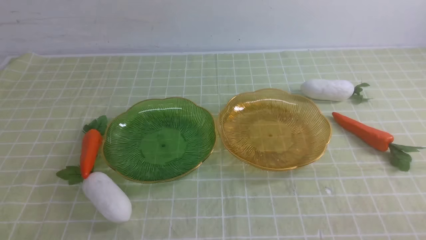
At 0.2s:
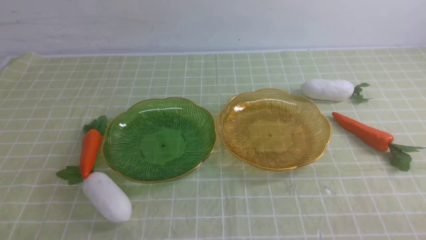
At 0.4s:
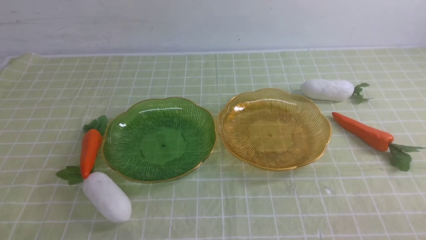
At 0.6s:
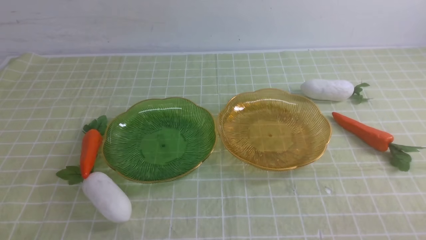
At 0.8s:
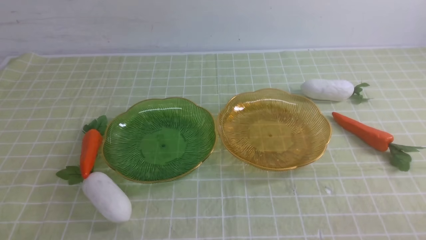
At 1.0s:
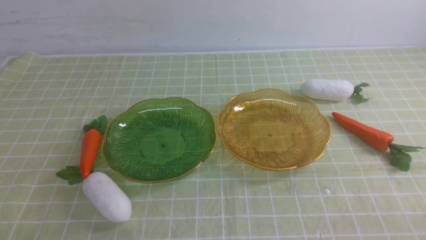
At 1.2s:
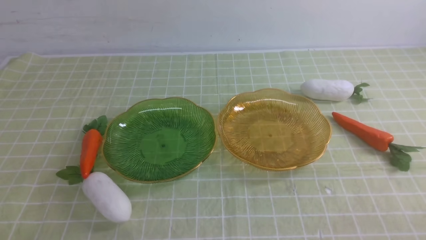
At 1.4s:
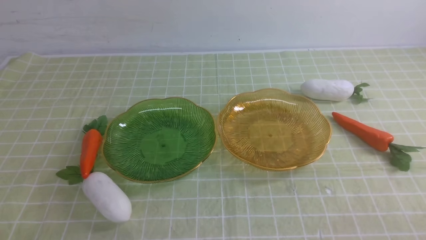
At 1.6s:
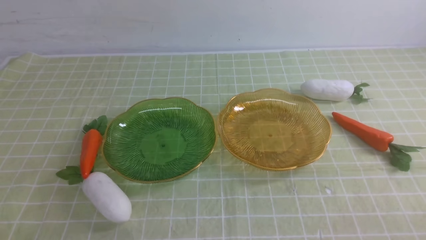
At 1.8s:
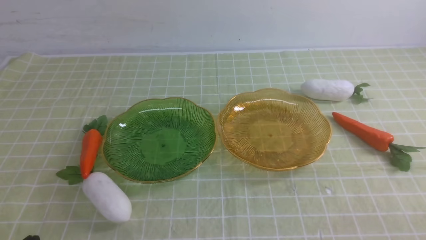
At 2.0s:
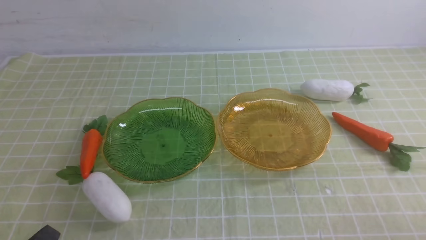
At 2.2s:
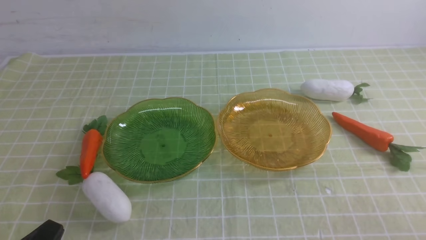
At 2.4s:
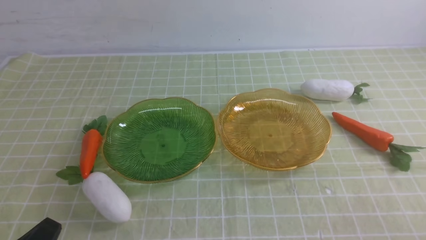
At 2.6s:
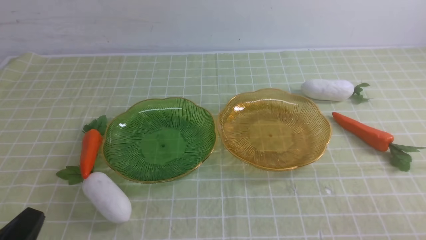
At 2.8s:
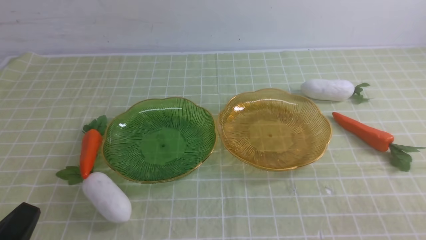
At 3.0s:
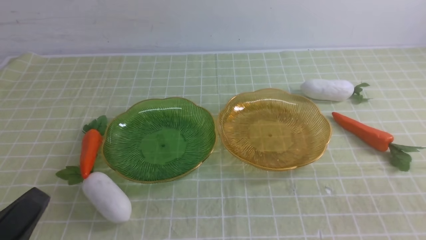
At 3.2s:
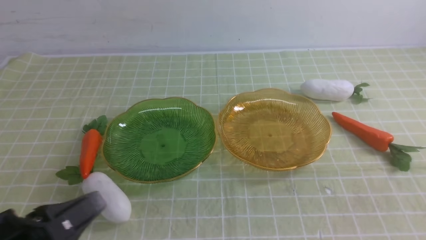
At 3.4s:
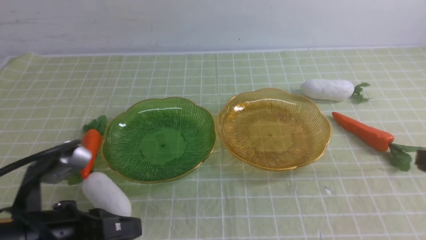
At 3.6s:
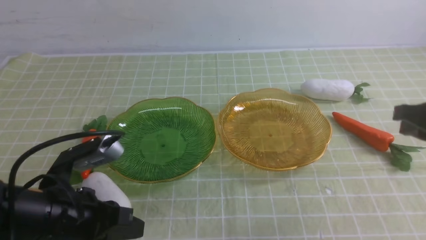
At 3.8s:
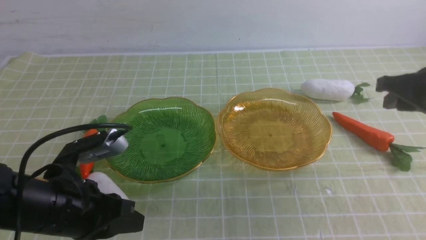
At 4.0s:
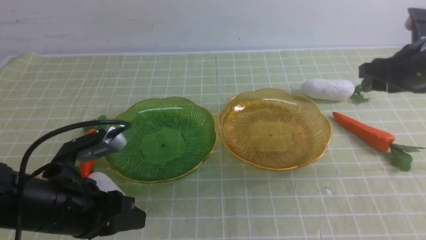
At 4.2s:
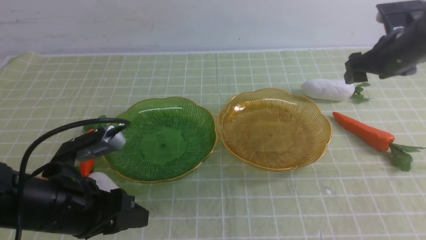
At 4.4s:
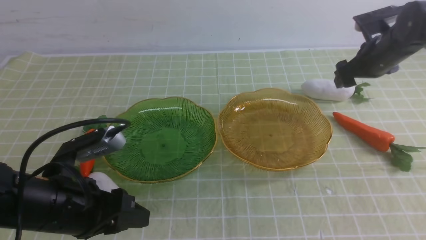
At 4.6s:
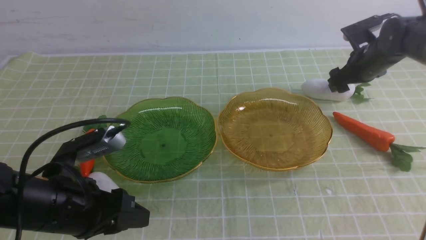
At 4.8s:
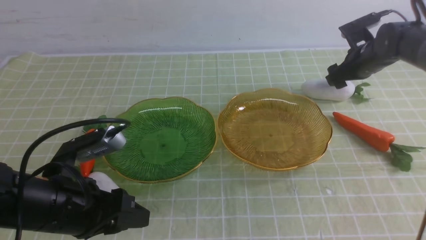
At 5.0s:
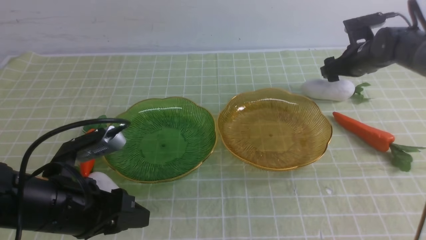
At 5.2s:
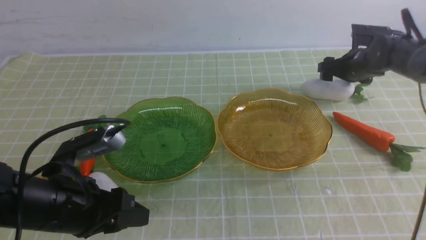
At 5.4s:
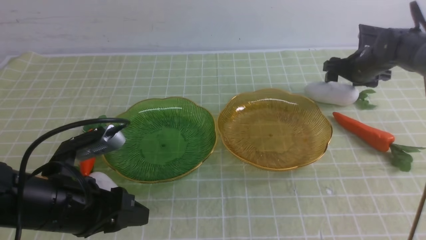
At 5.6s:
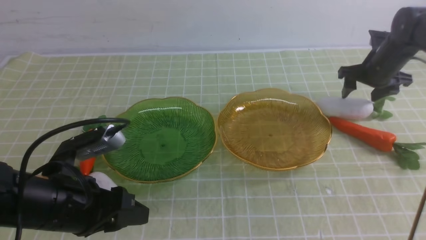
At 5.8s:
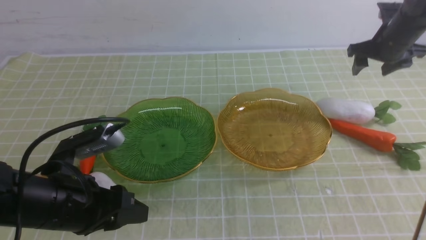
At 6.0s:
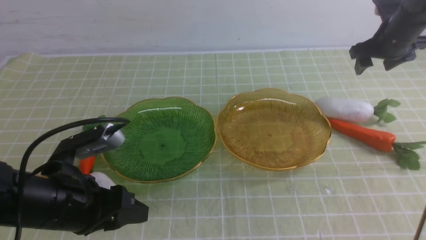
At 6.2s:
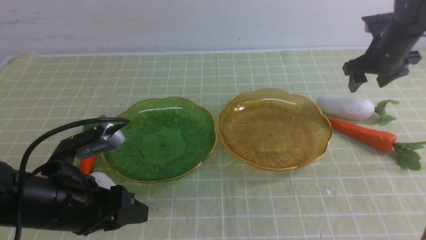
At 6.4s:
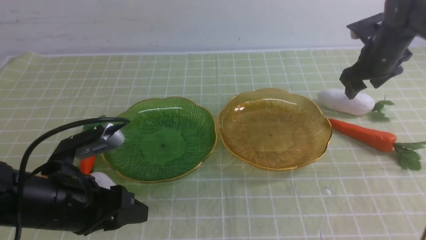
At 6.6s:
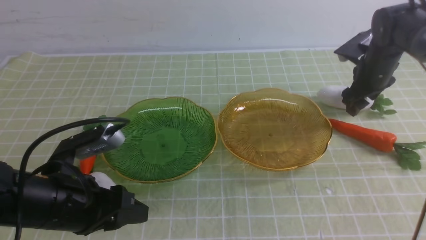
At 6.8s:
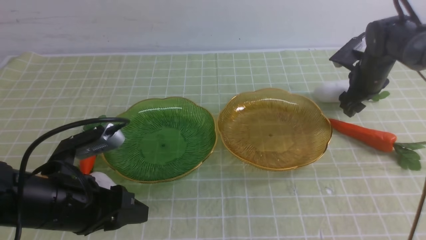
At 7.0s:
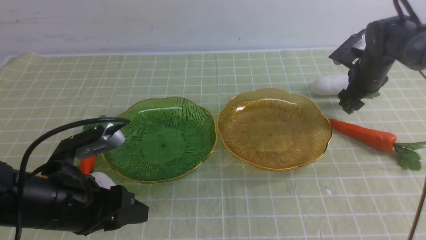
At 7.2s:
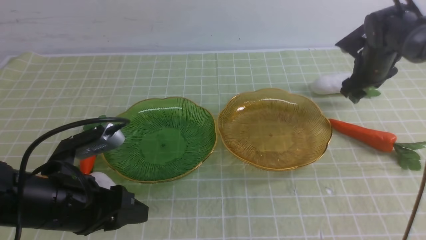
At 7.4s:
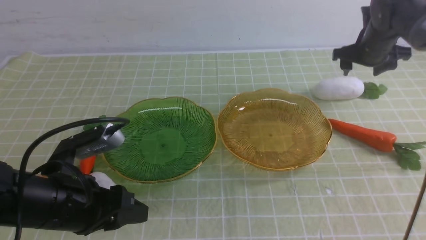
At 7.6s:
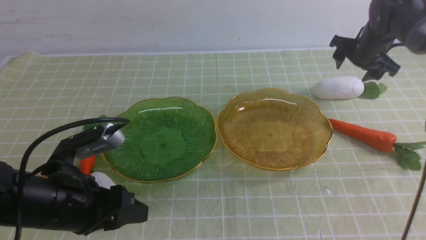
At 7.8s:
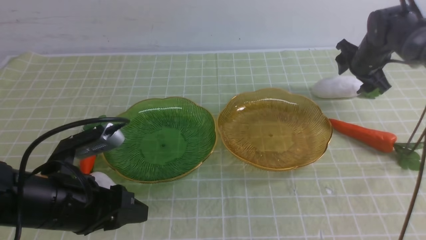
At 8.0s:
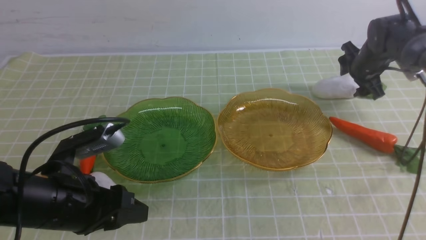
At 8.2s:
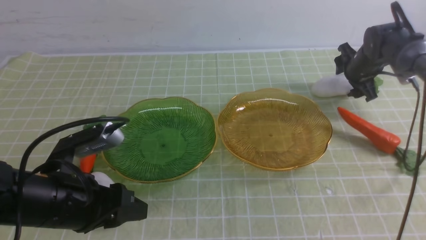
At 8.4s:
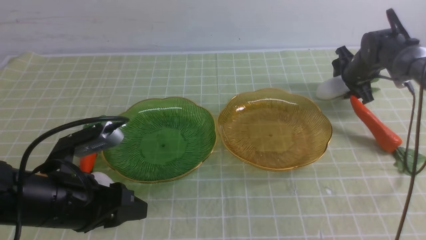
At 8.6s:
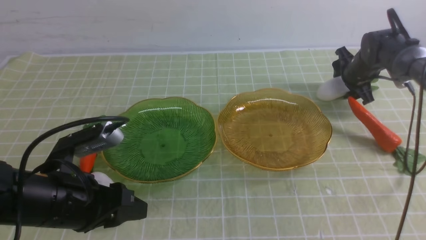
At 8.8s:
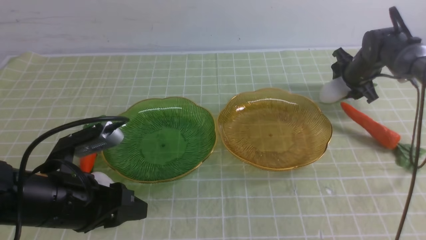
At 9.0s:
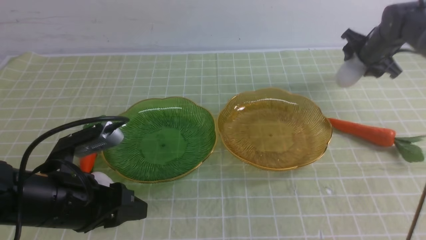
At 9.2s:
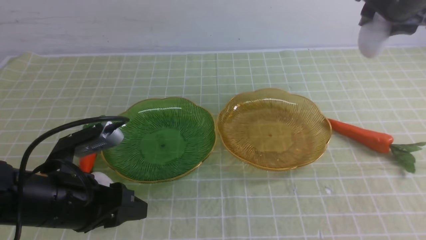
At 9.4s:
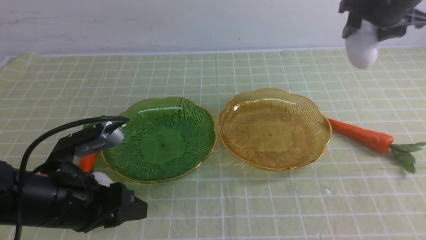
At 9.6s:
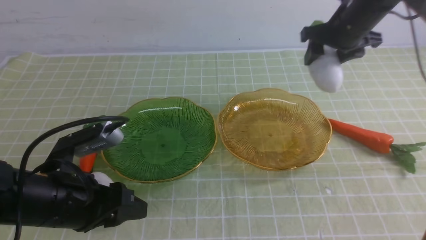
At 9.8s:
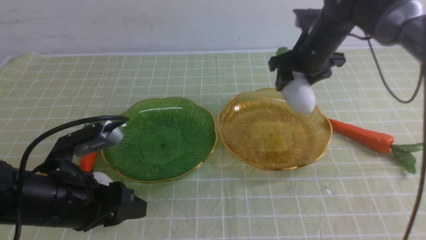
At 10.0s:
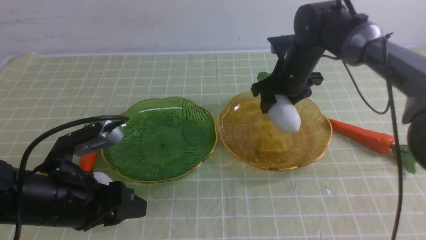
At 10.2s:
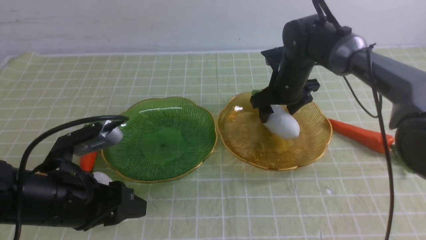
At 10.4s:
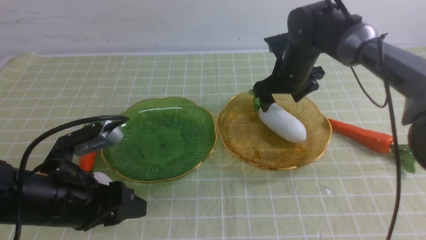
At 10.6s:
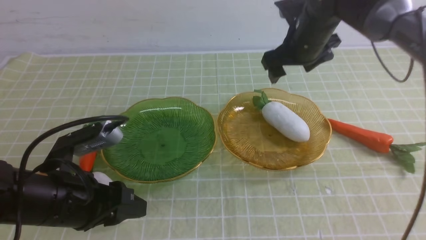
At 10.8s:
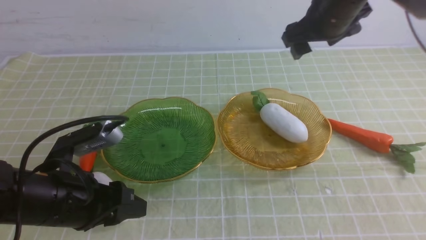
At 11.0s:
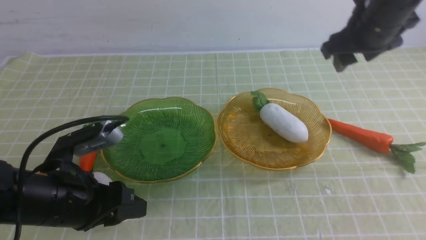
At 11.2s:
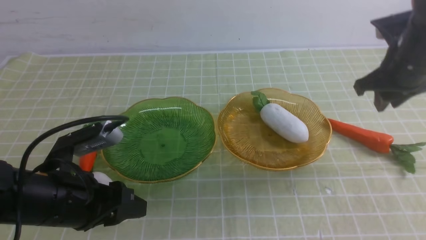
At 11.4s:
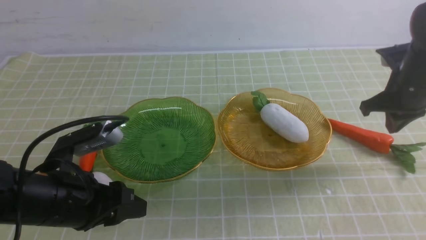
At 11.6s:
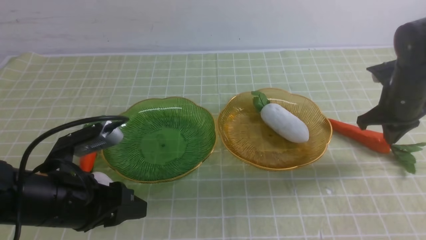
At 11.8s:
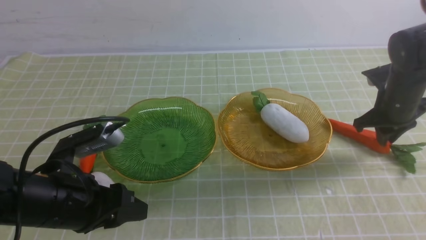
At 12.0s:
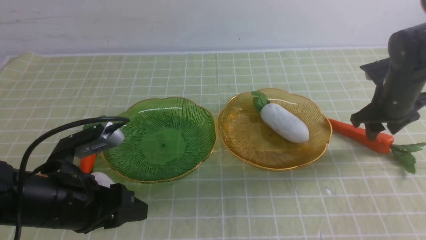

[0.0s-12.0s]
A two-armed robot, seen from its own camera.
Step, 0.0s to 10.8s: use the right arm to grab a radish and put it into the right plate.
1.6s to 3.0s: The left gripper is displaced upward by some 5 cm.
3.0s to 4.4s: The right gripper goes approximately 40 cm forward, and opens up. The left gripper travels forward by roughly 15 cm, and opens up.
9.0s to 10.4s: The right gripper travels to the left by roughly 20 cm.
10.4s to 12.0s: The right gripper travels to the right by about 15 cm, and closes.

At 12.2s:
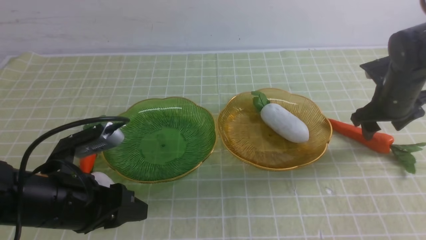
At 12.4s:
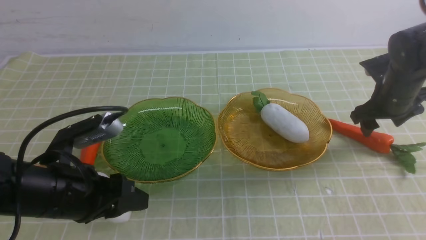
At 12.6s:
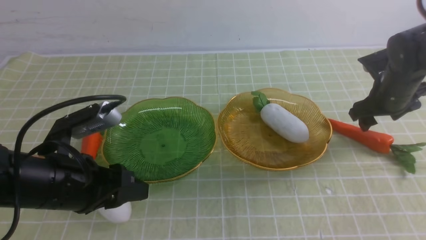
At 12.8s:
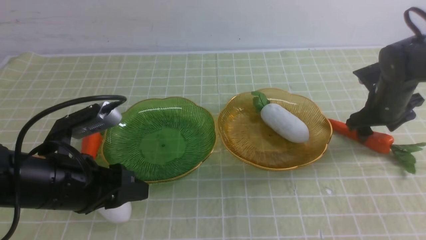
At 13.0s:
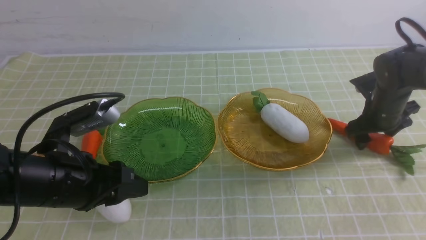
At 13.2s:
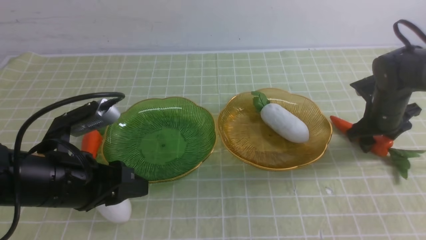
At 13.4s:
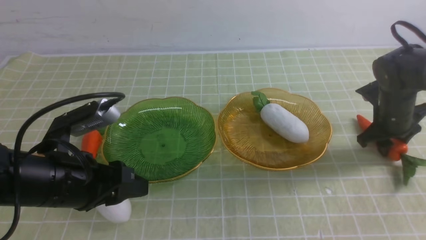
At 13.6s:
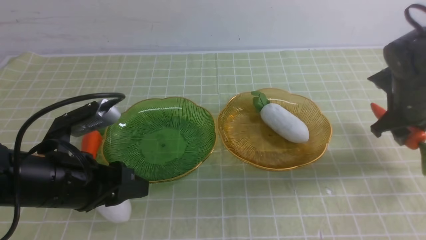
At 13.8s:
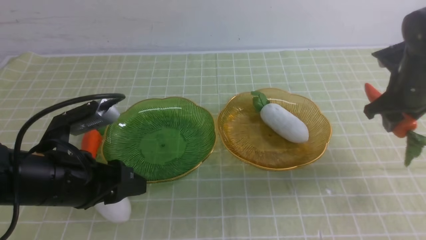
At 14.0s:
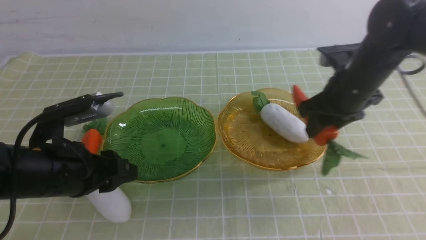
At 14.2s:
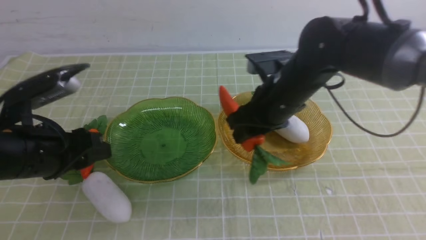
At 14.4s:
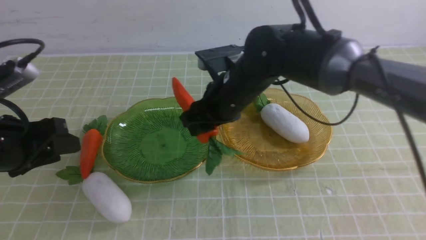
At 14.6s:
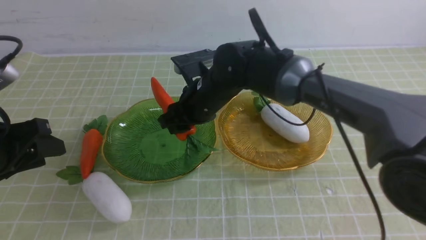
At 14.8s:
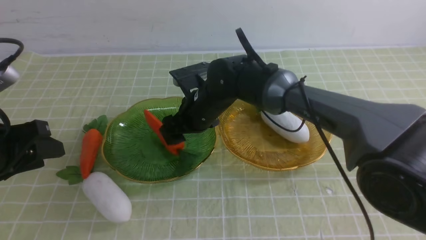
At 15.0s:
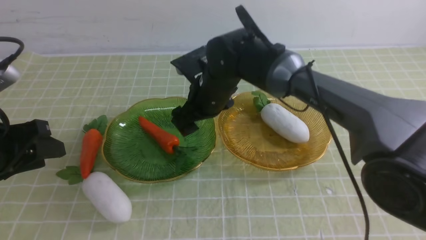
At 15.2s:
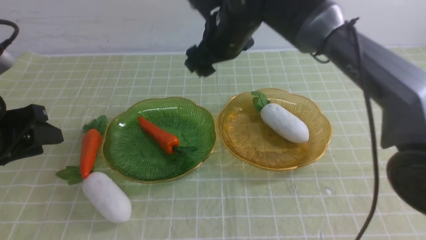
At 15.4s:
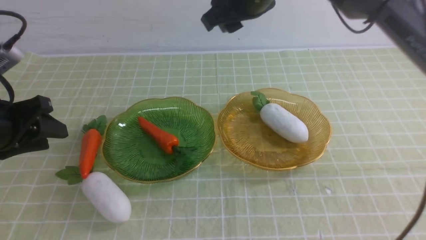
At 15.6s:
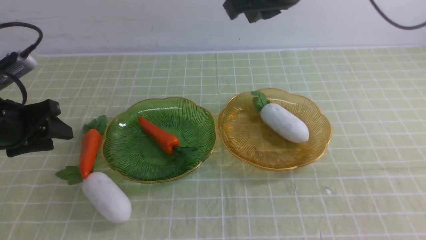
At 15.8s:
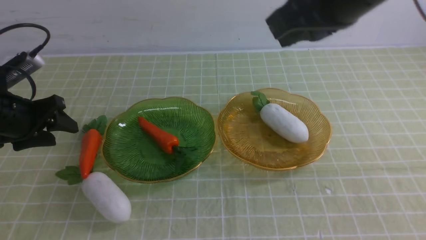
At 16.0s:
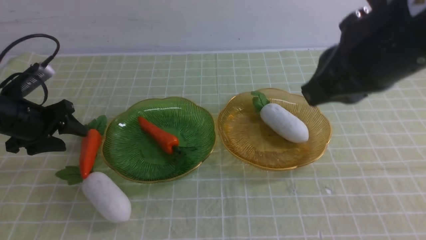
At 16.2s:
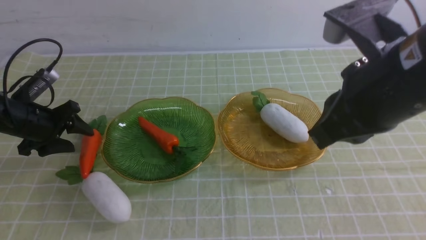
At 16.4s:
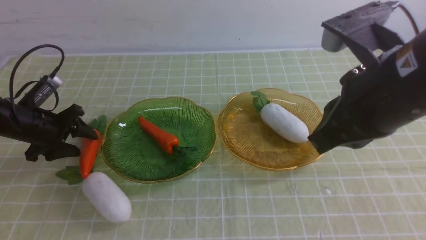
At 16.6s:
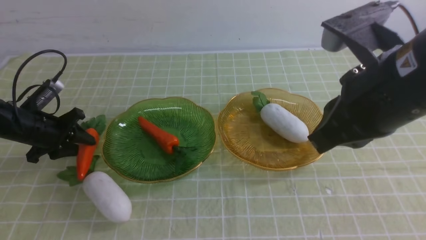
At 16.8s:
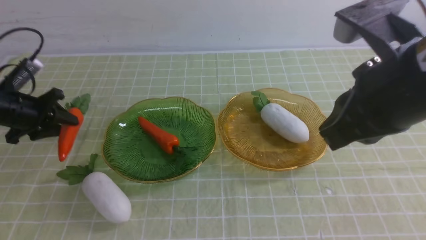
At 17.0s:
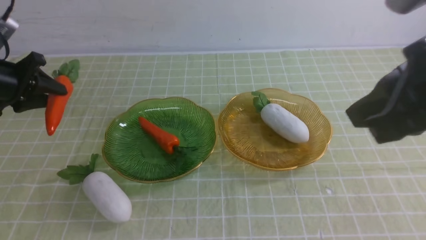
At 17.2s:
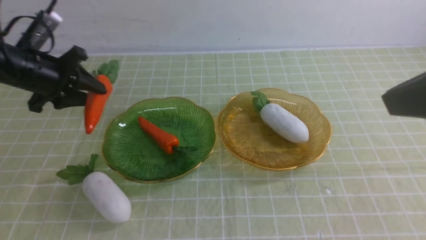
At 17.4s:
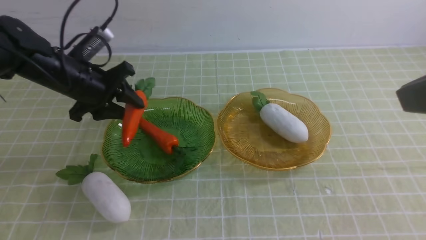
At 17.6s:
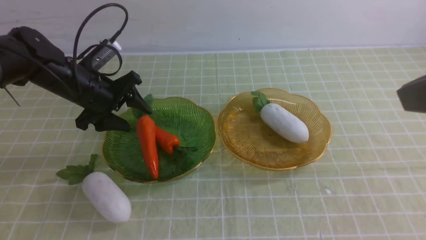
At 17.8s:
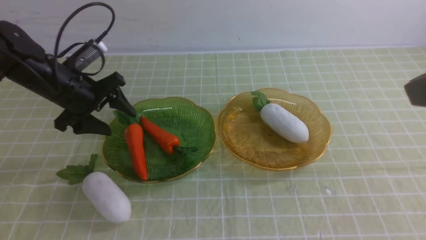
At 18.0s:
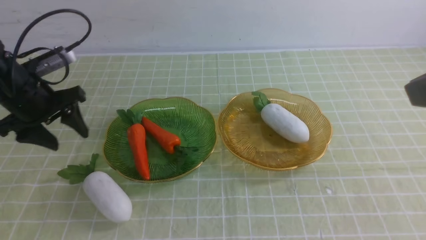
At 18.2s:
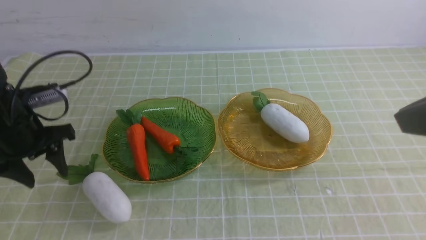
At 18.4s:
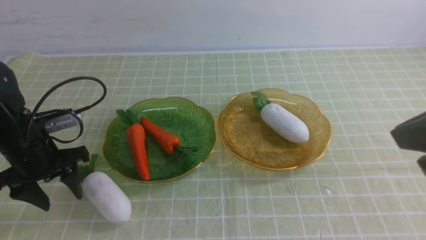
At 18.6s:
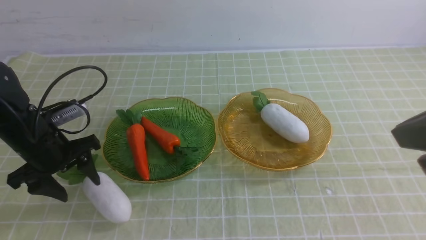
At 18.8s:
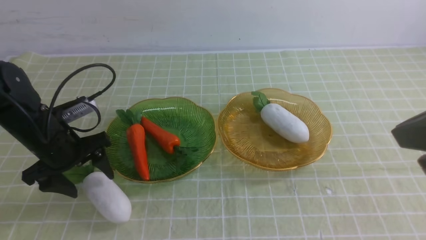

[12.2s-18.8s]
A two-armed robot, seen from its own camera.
Step, 12.2s to 15.2s: use the right arm to grab a carrot and put it into the left plate.
Step, 15.4s to 18.2s: use the left arm to grab a carrot and put it into the left plate.
12.2s to 13.8s: The grippers move only a little.
13.8s to 15.4s: The left gripper heads to the left, covering some 10 cm. The right gripper moves to the left and upward, some 30 cm.
15.4s to 17.2s: The left gripper goes roughly 15 cm forward. The right gripper moves backward and to the right, about 30 cm, and closes.
17.2s to 18.8s: The left gripper is displaced backward and downward by approximately 10 cm, and opens its fingers.
